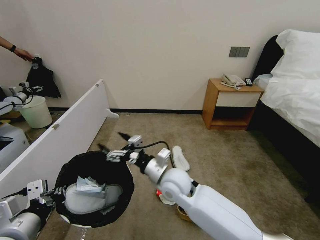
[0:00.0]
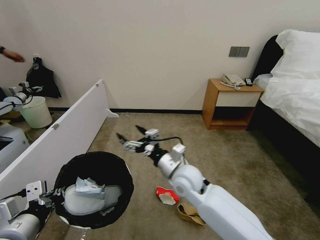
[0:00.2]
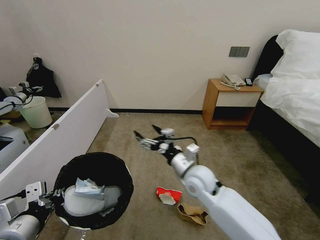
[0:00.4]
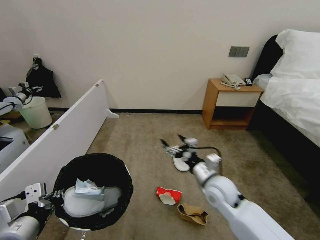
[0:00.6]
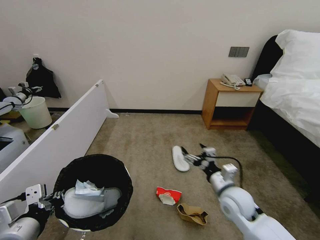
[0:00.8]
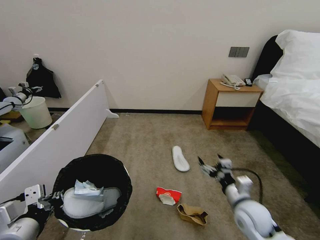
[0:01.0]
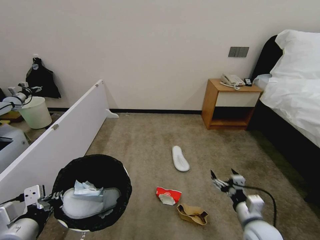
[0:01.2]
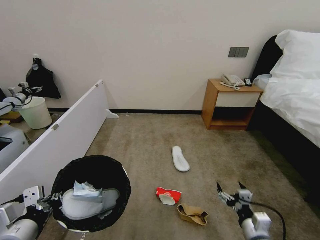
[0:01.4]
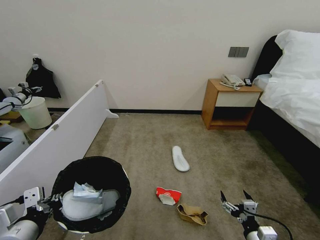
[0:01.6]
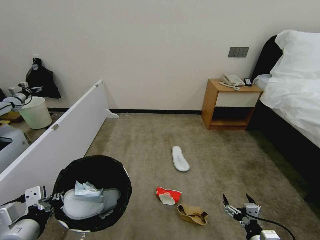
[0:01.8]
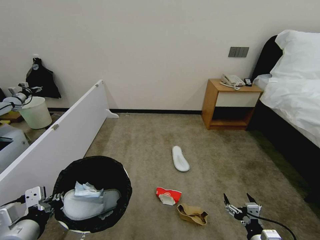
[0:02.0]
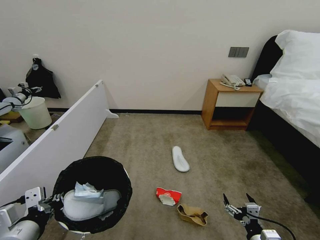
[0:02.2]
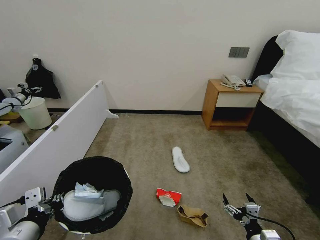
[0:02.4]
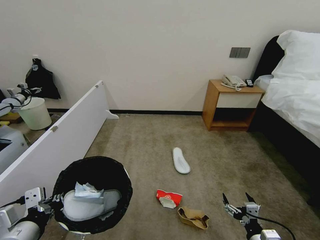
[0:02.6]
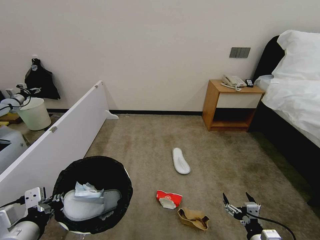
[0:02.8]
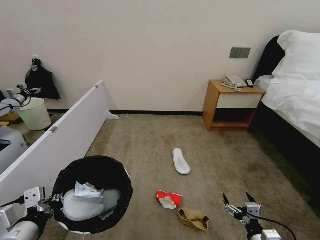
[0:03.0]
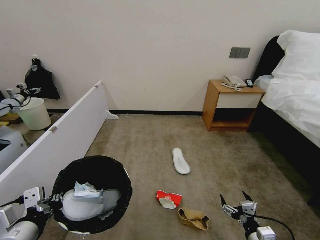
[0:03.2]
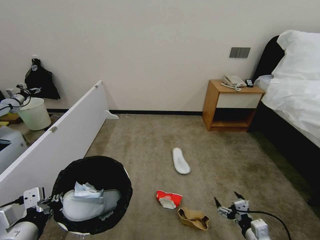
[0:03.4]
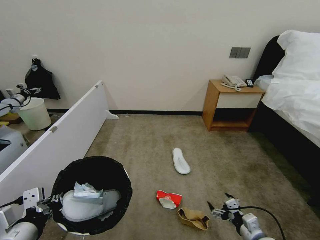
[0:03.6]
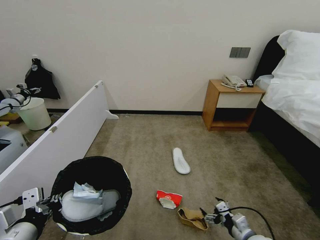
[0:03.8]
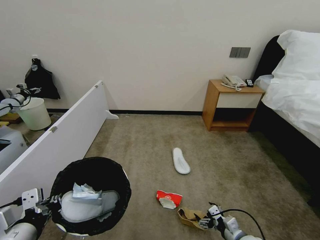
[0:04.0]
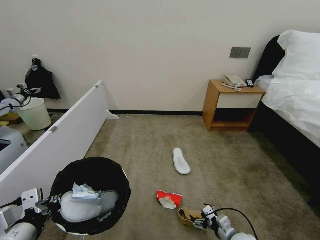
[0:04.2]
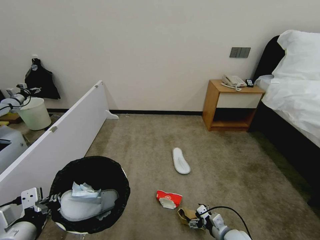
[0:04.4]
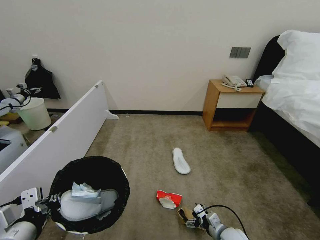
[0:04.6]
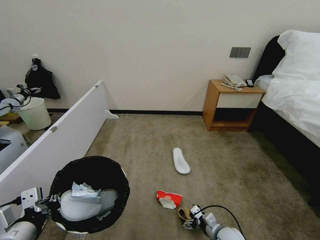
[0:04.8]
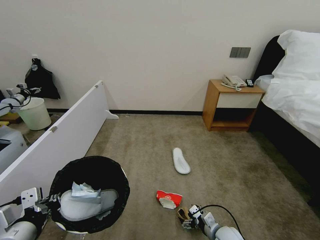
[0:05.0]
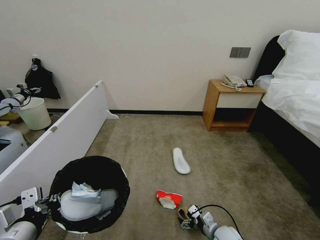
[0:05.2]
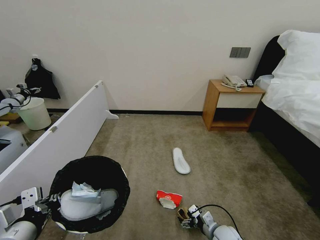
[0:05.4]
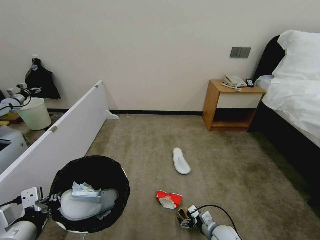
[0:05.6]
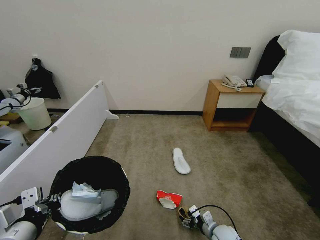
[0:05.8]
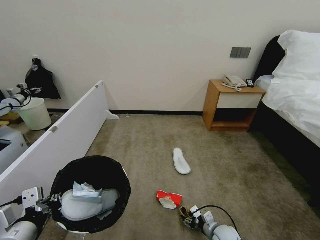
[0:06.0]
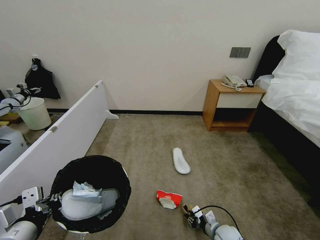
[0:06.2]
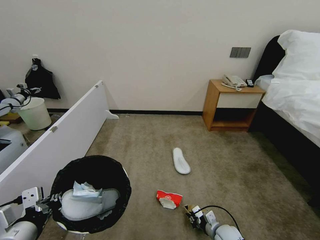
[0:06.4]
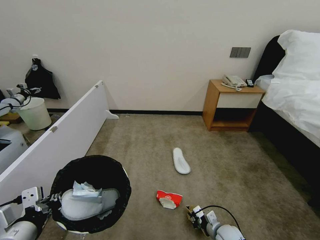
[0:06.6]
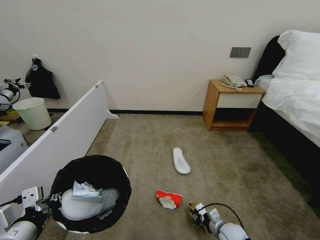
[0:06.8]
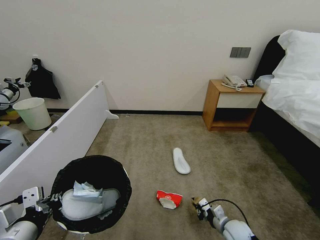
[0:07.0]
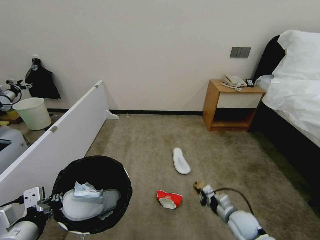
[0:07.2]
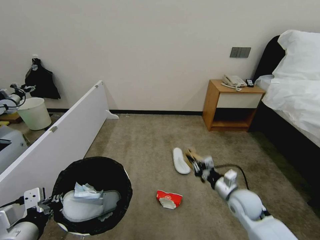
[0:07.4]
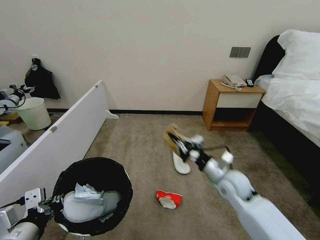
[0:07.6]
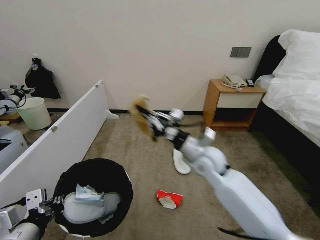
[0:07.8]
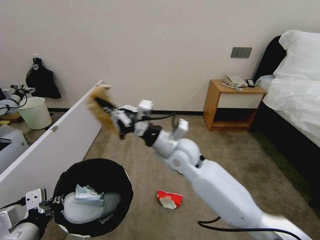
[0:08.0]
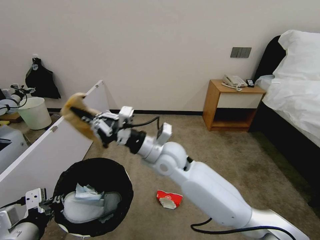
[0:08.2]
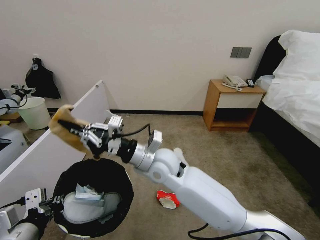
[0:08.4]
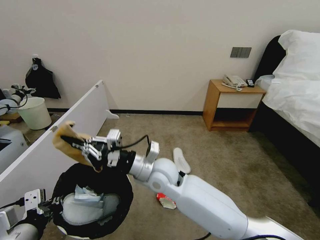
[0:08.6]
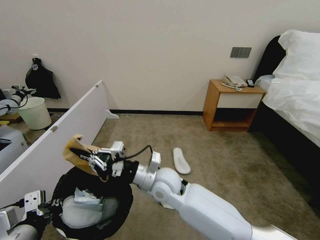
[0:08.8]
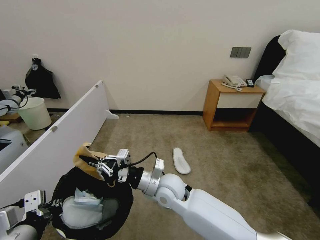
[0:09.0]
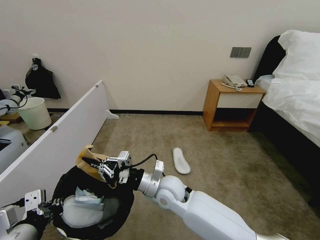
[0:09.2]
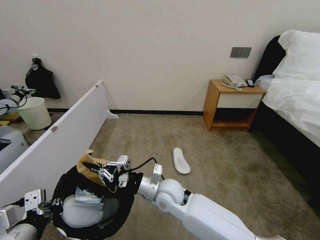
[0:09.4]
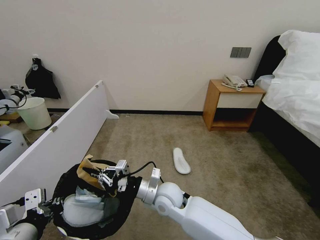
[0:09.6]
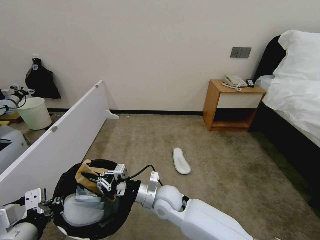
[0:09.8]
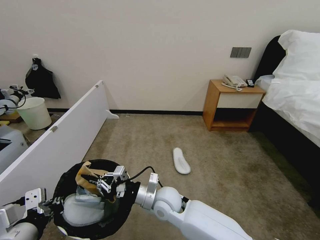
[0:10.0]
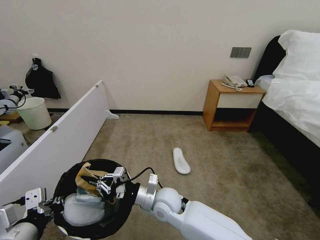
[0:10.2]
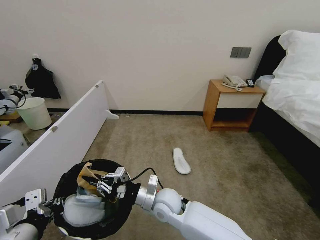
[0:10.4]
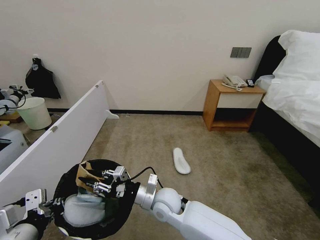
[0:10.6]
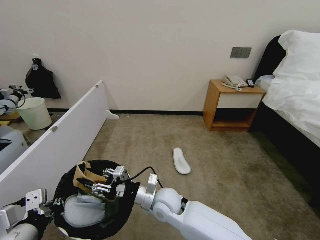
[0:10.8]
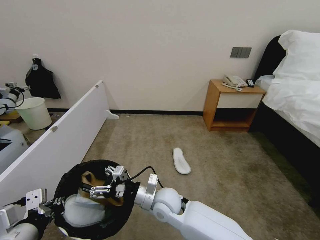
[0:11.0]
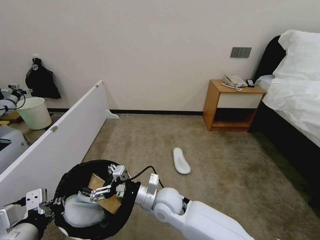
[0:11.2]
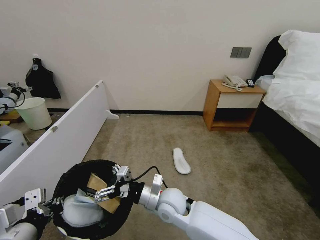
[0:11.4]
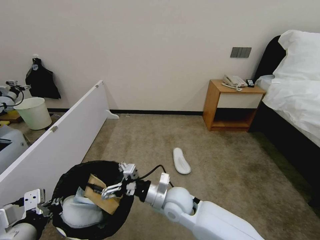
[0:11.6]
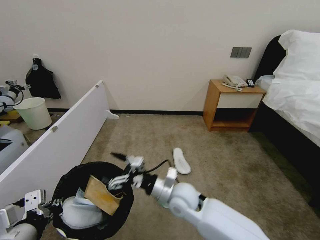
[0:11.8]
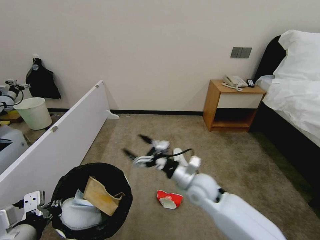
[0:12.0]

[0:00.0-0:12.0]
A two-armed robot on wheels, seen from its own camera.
Task of the whole recording: Pick up the trash bin, then pick up the garbage from the floor and place it into the trash bin.
0:00.0 to 0:01.6: The right gripper moves to the right, backward and downward, some 35 cm.
0:01.6 to 0:03.0: The two grippers keep their place.
0:03.0 to 0:04.4: The right gripper heads forward and downward, covering about 10 cm.
0:04.4 to 0:06.0: The right gripper shifts by about 5 cm, and closes up.
0:06.0 to 0:07.6: The right gripper heads upward, covering about 25 cm, and closes up.
0:07.6 to 0:09.0: The right gripper travels to the left by approximately 25 cm.
0:09.0 to 0:10.4: The right gripper shifts some 10 cm downward.
0:10.4 to 0:12.0: The right gripper shifts roughly 10 cm to the right, and opens.

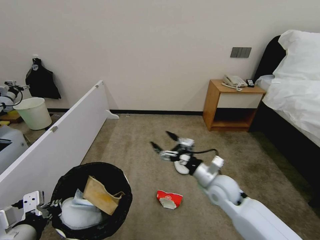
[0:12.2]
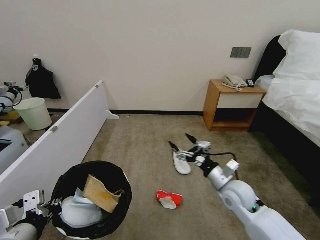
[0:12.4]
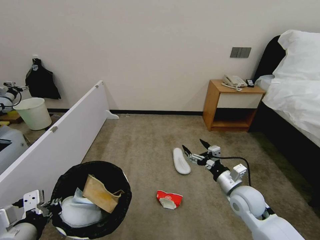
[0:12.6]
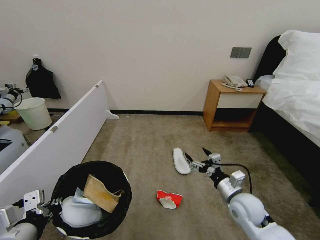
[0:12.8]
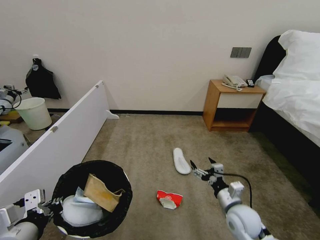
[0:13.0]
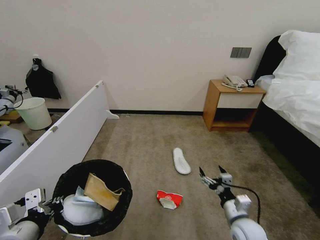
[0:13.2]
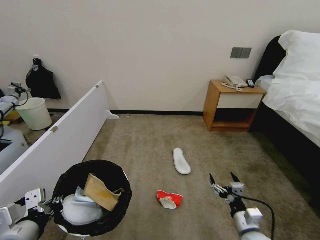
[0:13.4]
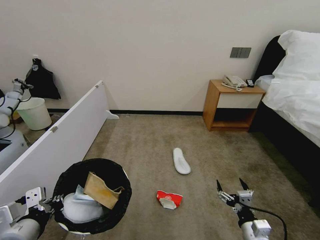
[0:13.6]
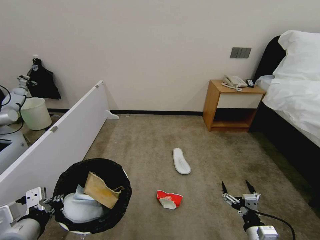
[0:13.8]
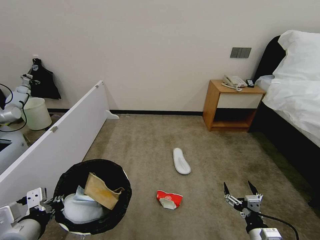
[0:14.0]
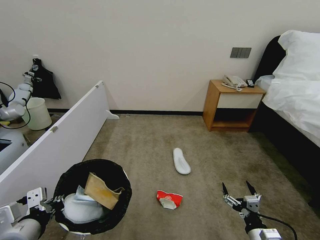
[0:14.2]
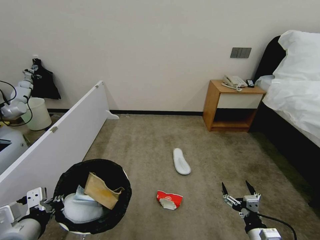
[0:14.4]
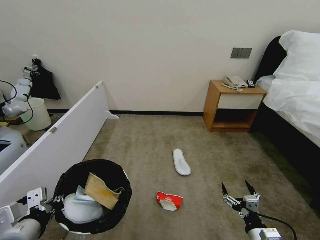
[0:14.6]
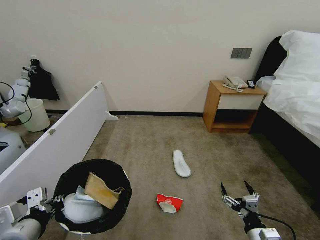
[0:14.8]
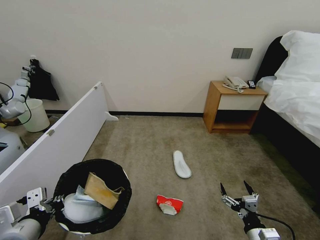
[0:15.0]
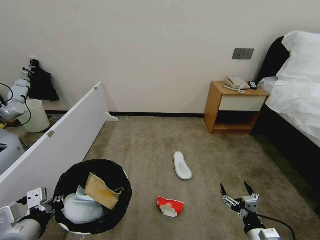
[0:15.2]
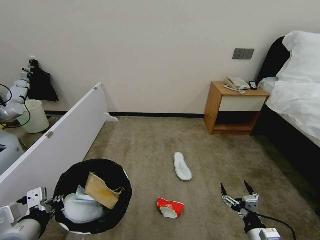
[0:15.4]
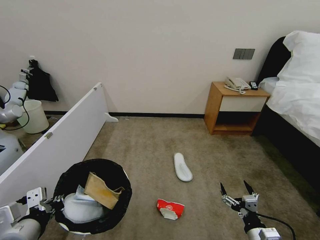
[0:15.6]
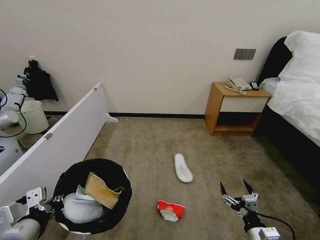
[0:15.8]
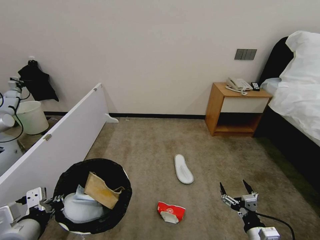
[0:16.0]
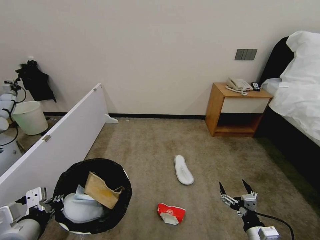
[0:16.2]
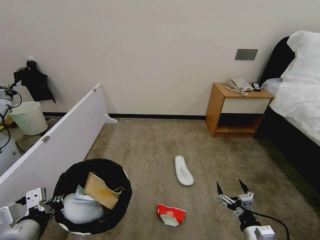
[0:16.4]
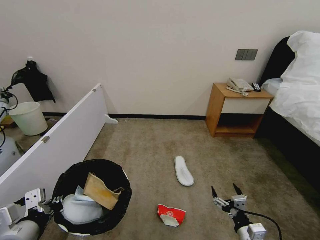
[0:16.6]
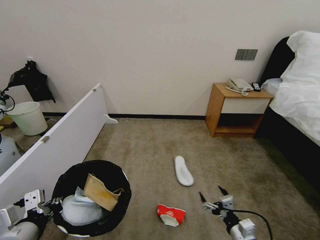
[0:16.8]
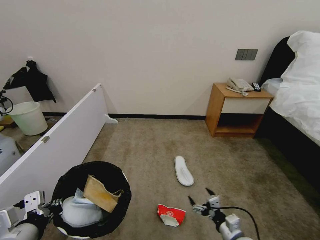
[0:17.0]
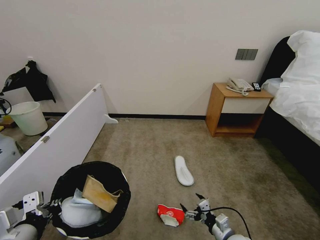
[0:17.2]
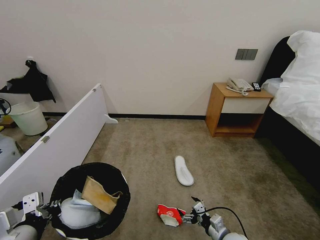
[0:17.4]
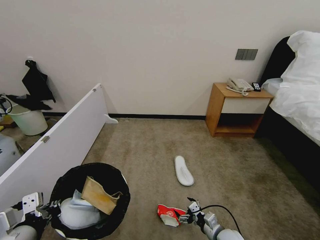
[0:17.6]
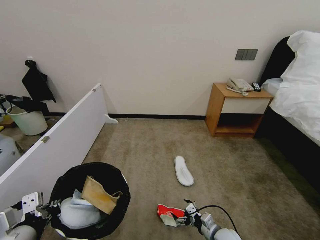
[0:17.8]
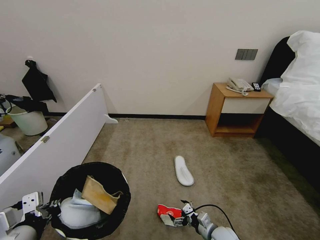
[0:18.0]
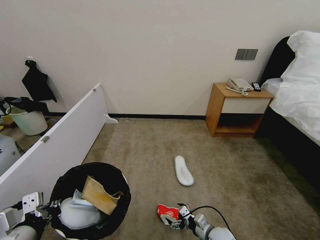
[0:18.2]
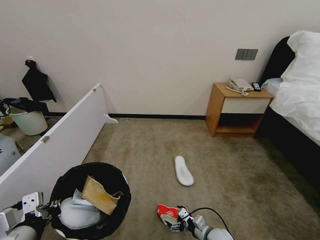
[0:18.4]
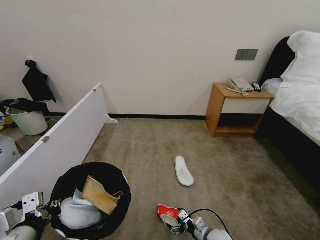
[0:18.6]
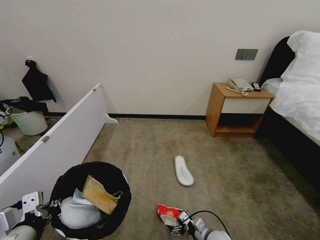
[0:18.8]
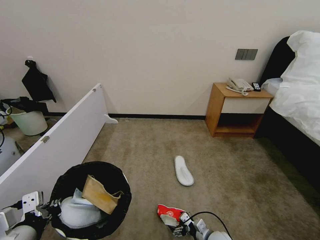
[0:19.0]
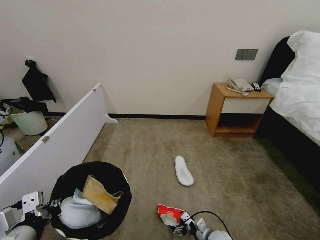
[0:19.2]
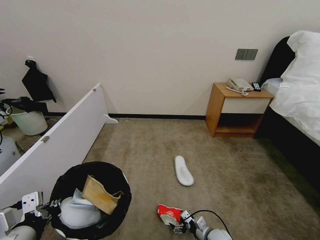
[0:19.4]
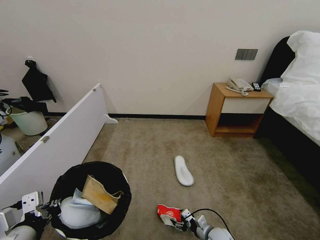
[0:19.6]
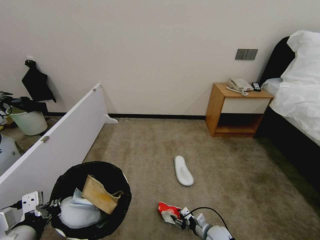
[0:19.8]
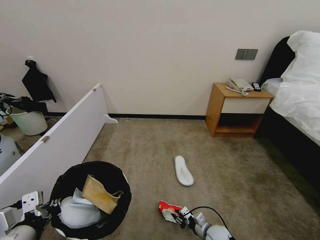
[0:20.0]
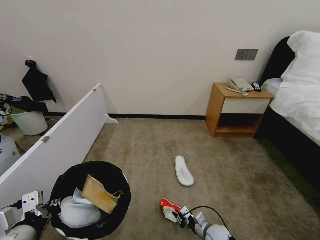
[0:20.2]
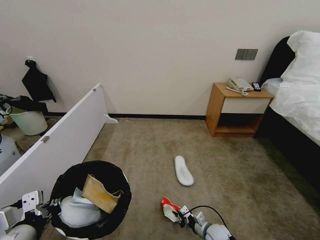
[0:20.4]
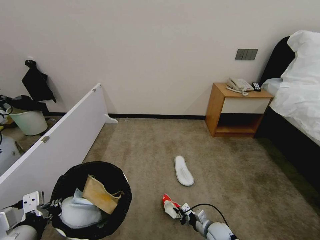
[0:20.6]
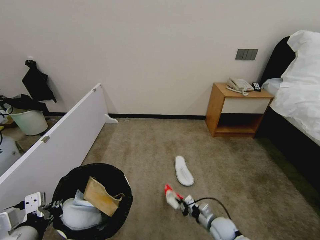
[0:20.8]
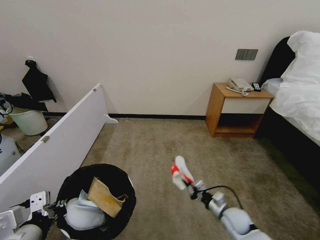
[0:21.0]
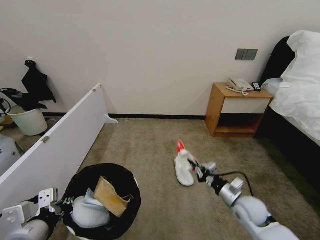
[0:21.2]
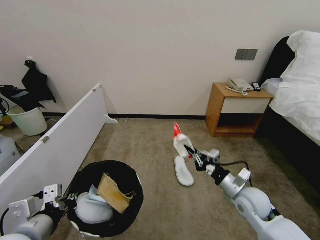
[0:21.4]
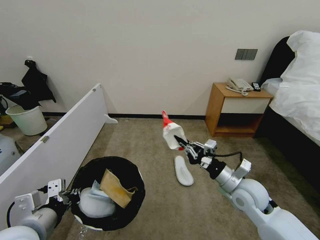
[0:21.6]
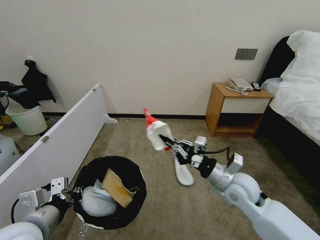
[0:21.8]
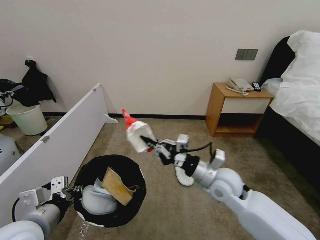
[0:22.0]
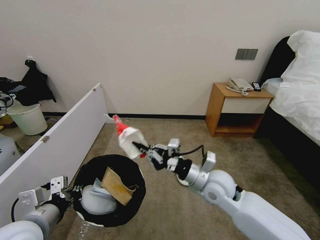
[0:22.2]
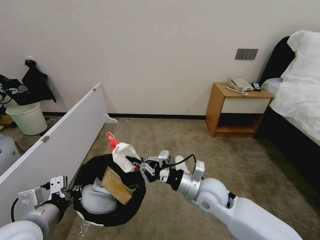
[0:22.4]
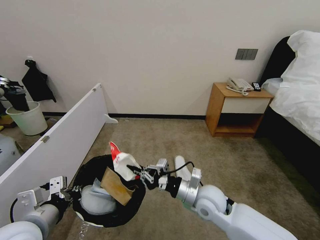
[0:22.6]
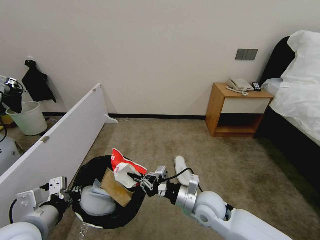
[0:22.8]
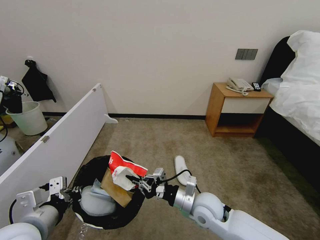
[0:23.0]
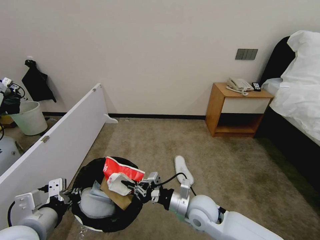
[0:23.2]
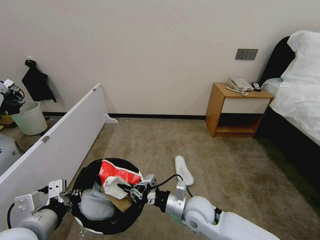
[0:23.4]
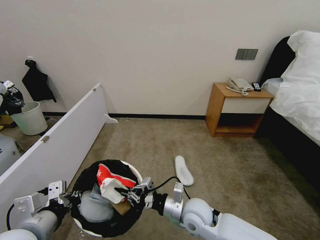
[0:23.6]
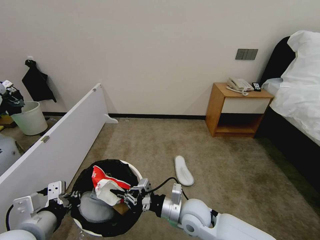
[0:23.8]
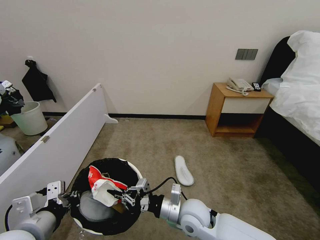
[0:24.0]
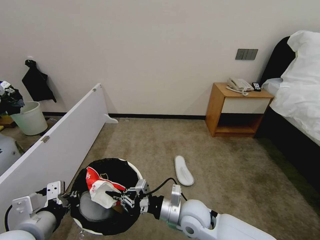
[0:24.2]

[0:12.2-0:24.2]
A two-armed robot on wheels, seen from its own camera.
Task of the whole recording: Pick up the trash bin, then pick up the garbage from the floor and place it into the trash bin.
0:12.2 to 0:13.8: The right gripper moves backward, downward and to the right, some 25 cm.
0:13.8 to 0:15.2: Both grippers stay put.
0:15.2 to 0:16.6: The grippers make only small movements.
0:16.6 to 0:18.2: The right gripper travels downward, forward and to the left by roughly 15 cm.
0:18.2 to 0:19.8: The right gripper closes.
0:19.8 to 0:21.2: The right gripper heads upward, covering approximately 20 cm, and closes its fingers.
0:21.2 to 0:22.6: The right gripper is displaced to the left and upward by approximately 20 cm.
0:22.6 to 0:24.2: The right gripper travels to the left by approximately 5 cm.
